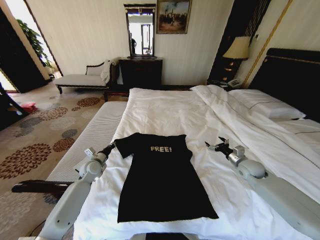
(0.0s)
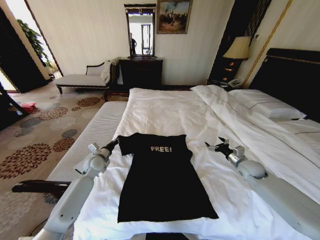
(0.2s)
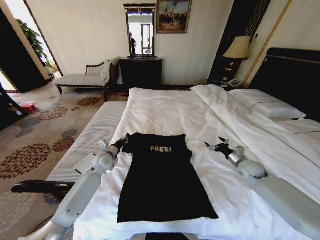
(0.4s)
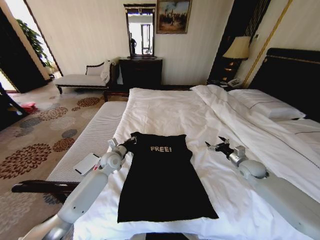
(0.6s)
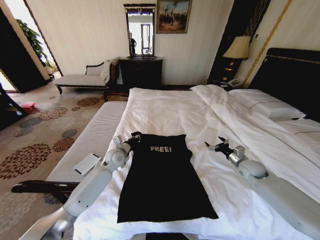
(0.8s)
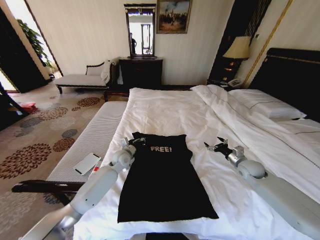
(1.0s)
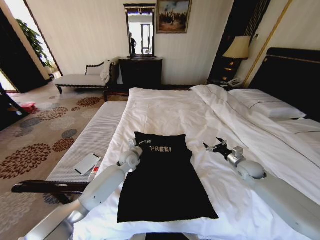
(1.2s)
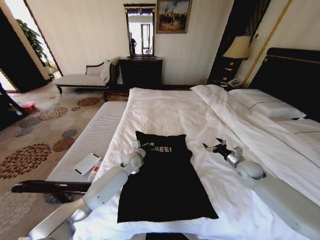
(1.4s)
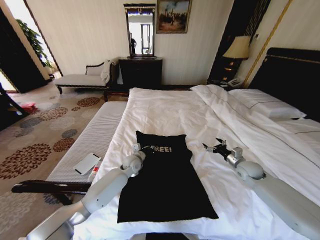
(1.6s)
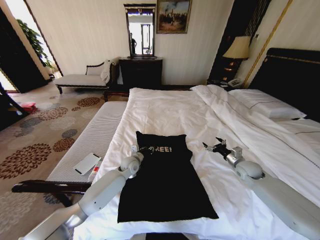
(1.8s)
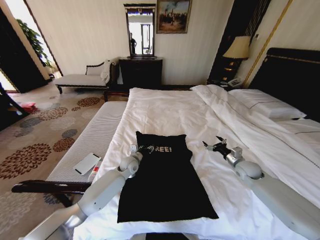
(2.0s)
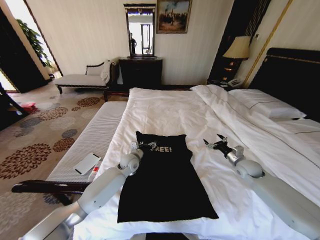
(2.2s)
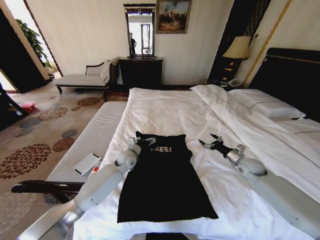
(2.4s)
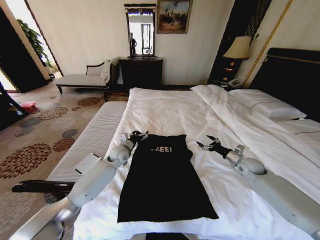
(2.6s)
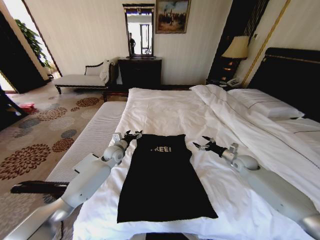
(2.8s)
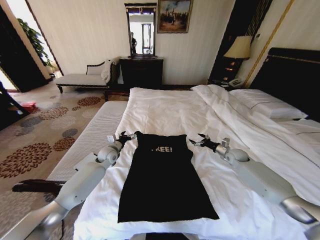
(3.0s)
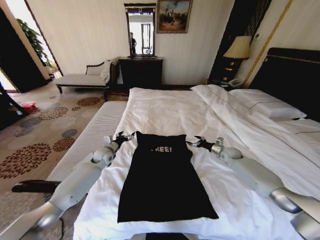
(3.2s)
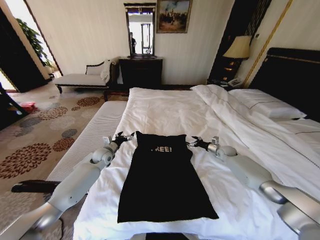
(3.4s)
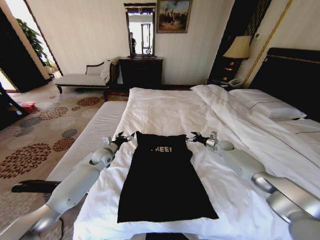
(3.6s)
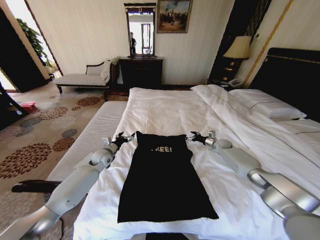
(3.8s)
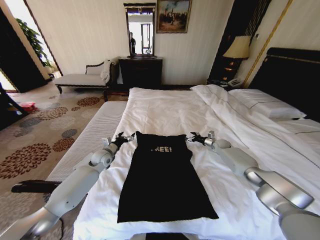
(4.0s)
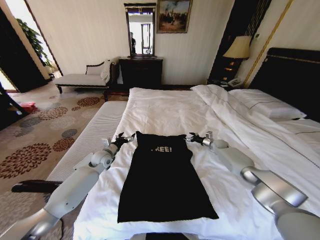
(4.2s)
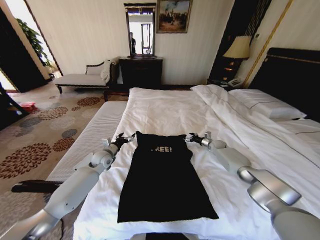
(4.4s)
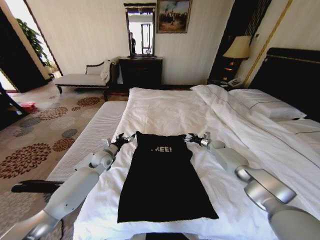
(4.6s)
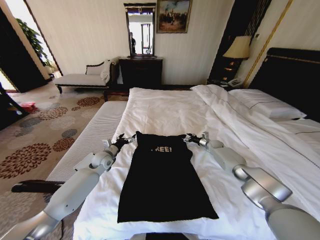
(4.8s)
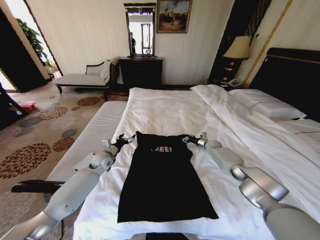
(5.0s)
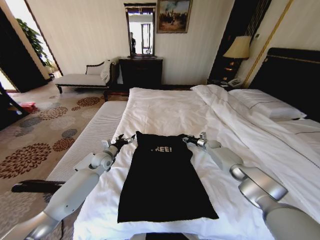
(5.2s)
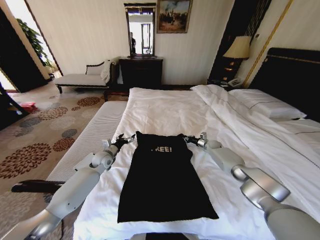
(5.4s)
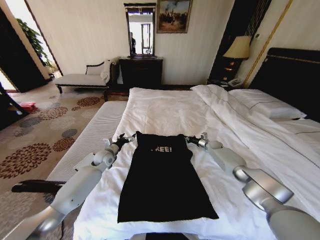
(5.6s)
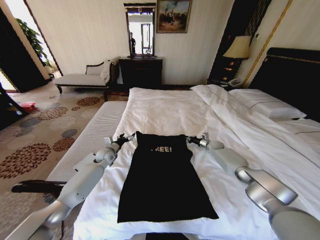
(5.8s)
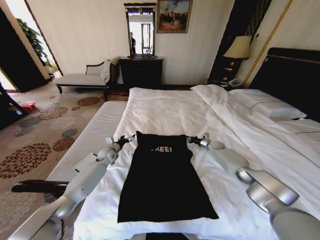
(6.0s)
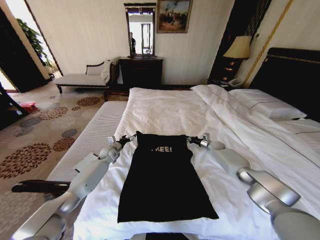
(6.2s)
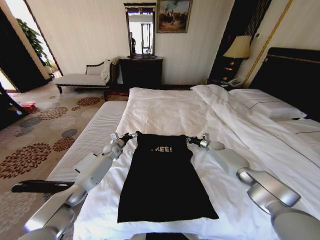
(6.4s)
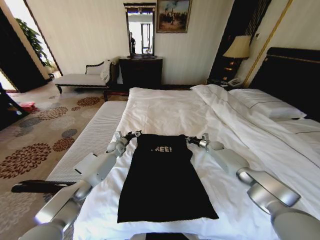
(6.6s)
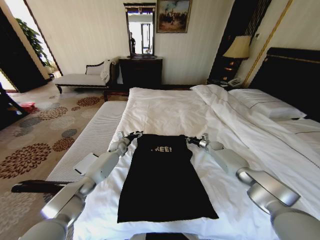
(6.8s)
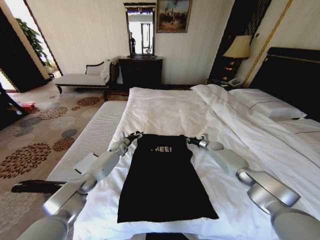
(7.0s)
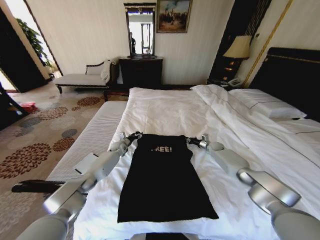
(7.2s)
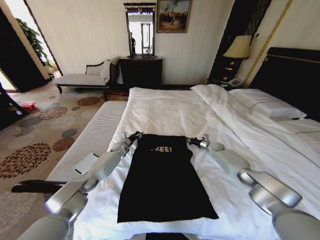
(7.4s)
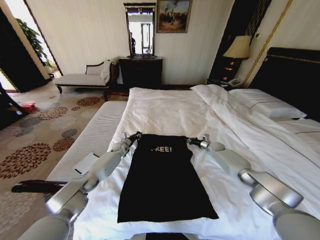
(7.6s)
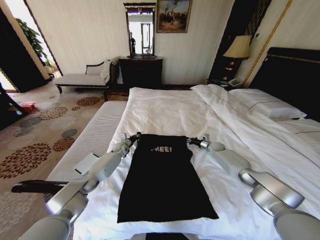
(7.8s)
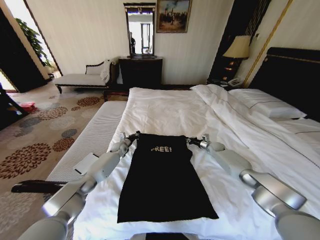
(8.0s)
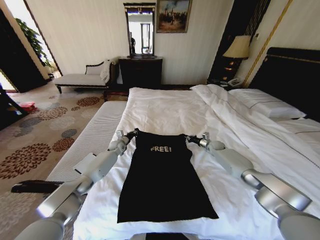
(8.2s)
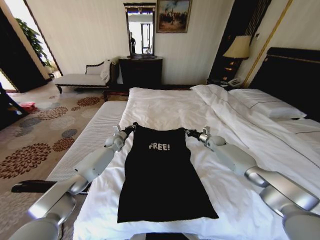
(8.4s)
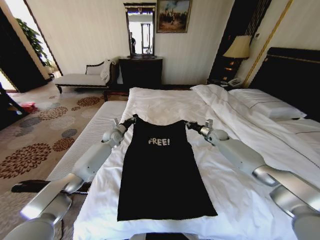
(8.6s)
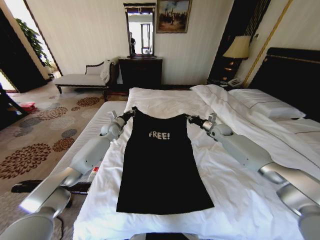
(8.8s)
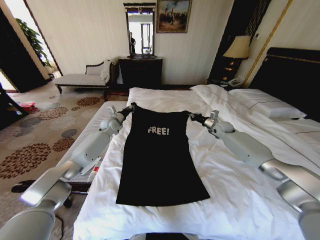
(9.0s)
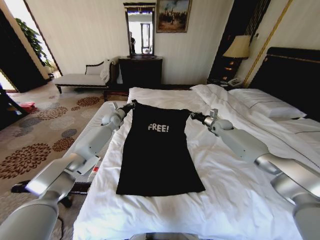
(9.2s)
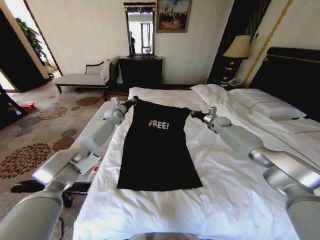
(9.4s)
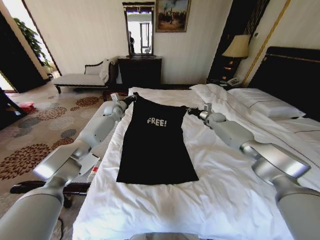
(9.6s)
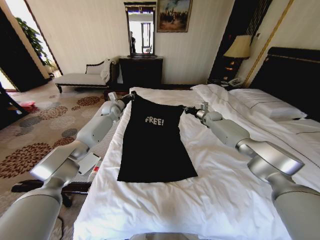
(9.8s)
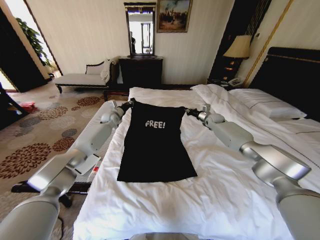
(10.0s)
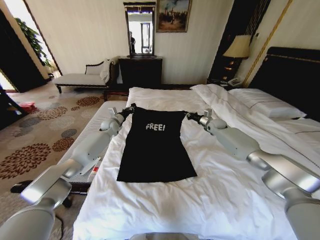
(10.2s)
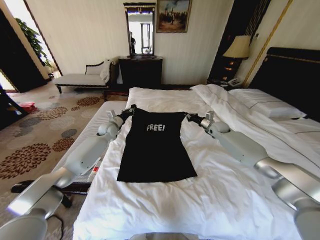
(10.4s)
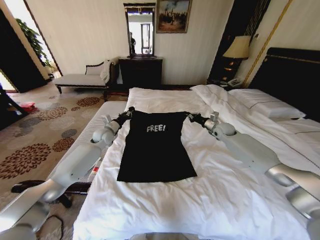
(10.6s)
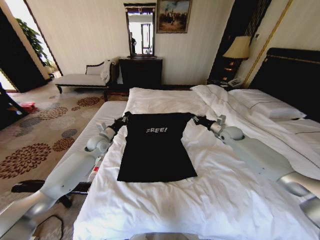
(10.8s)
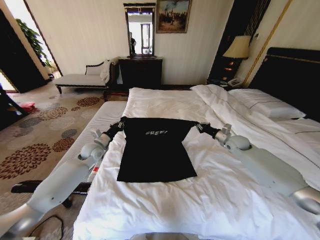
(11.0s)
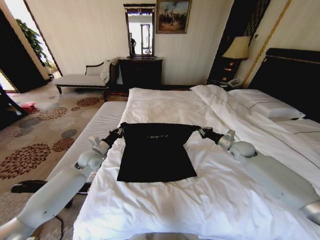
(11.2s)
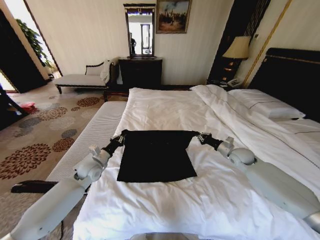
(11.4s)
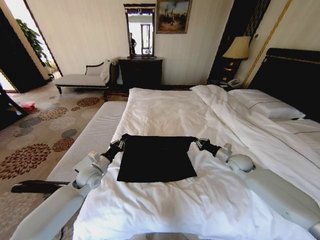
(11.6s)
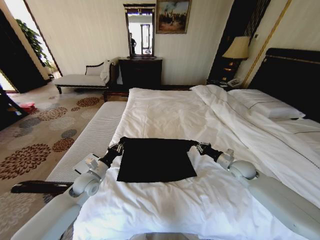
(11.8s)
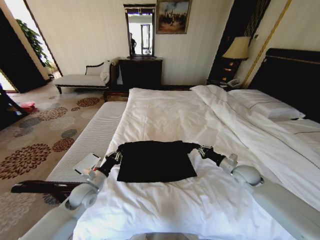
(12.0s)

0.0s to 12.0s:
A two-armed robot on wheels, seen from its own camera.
Task of the whole recording: Fold the clothes on the bed.
0.0s to 1.6s: The left gripper is displaced to the right by approximately 20 cm.
1.6s to 3.0s: The right gripper moves forward, approximately 10 cm. Meanwhile the left gripper shifts about 15 cm to the left, and opens.
3.0s to 4.4s: The right gripper is displaced forward by approximately 10 cm.
4.4s to 6.0s: The right gripper closes its fingers; the left gripper goes roughly 5 cm forward.
6.0s to 7.6s: The left gripper is displaced forward and to the right by approximately 10 cm, and closes.
7.6s to 9.0s: The grippers both shift upward by some 15 cm.
9.0s to 10.4s: The left gripper moves about 5 cm forward and comes back. Meanwhile the right gripper travels forward and back again, some 10 cm each way.
10.4s to 12.0s: The two grippers go some 25 cm backward.

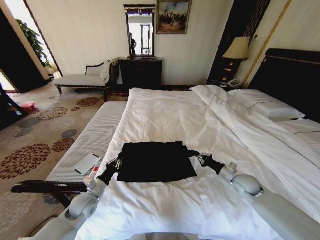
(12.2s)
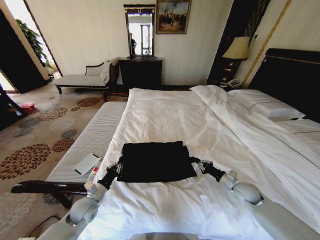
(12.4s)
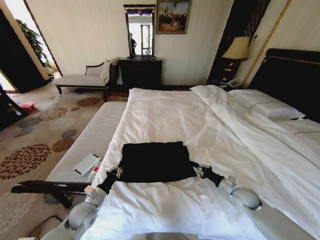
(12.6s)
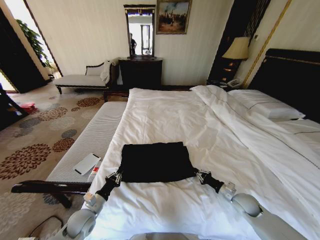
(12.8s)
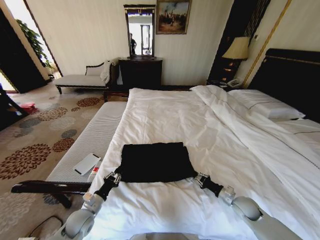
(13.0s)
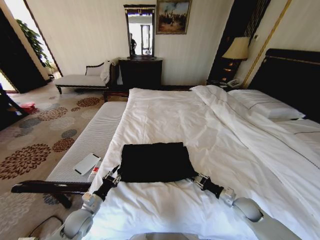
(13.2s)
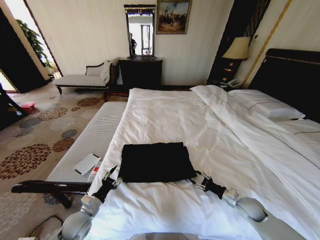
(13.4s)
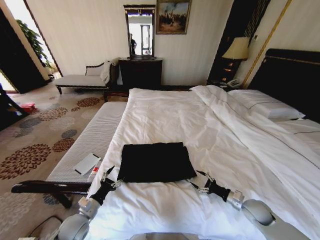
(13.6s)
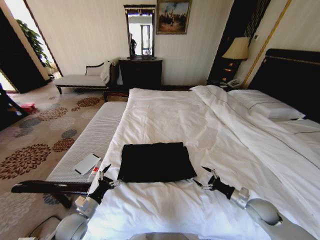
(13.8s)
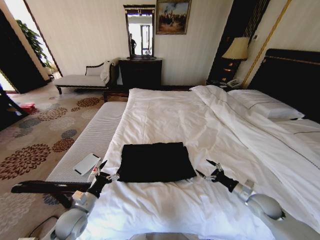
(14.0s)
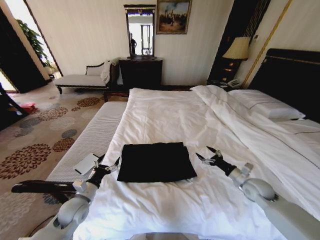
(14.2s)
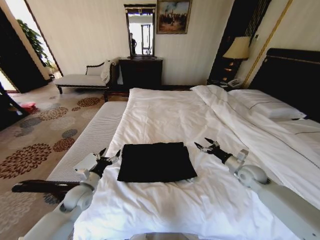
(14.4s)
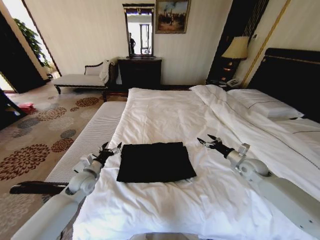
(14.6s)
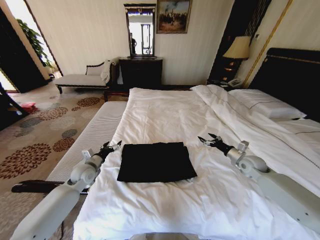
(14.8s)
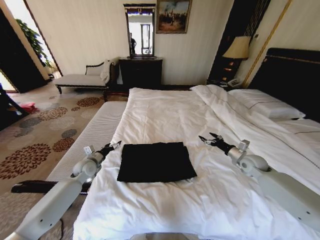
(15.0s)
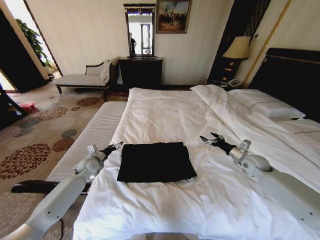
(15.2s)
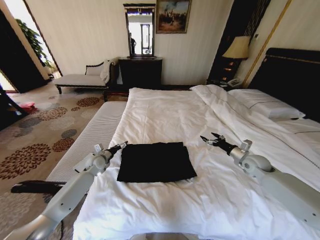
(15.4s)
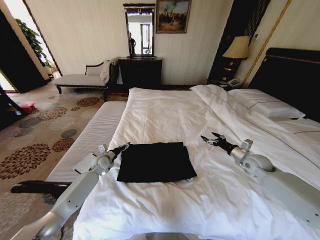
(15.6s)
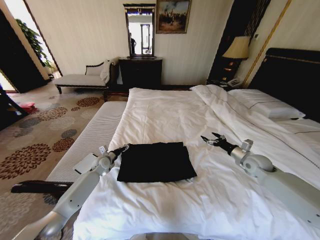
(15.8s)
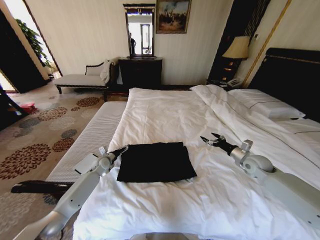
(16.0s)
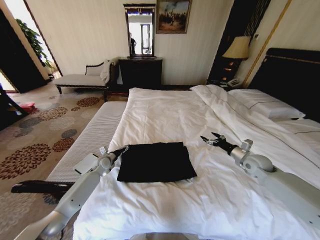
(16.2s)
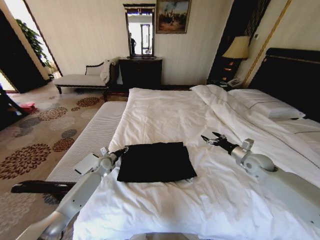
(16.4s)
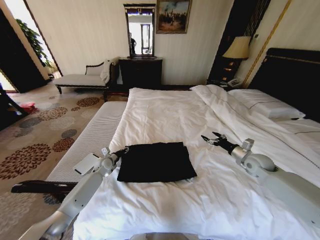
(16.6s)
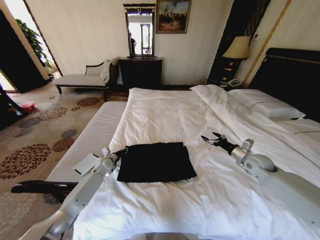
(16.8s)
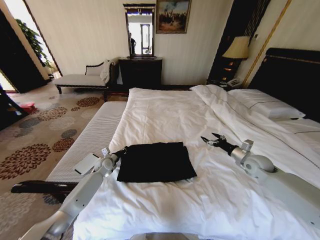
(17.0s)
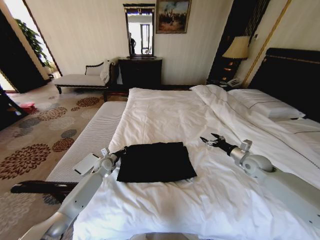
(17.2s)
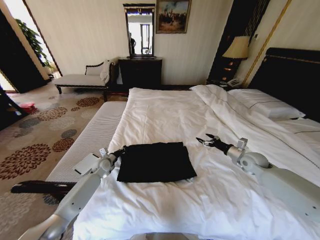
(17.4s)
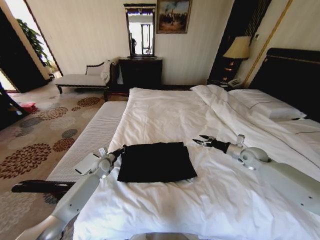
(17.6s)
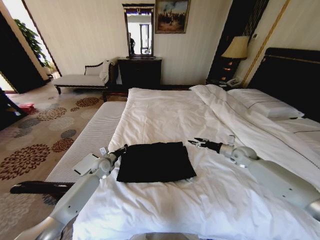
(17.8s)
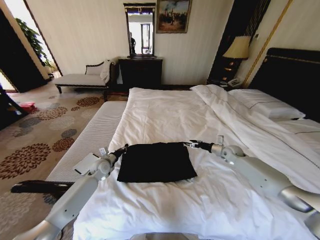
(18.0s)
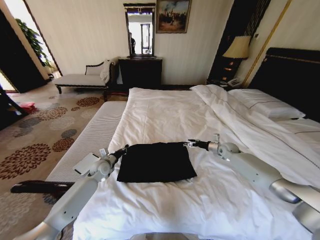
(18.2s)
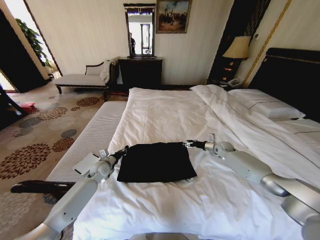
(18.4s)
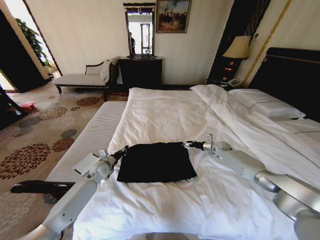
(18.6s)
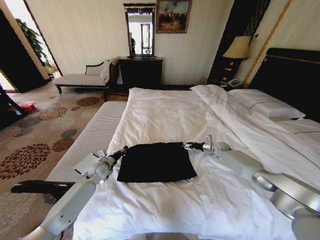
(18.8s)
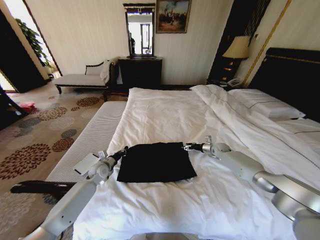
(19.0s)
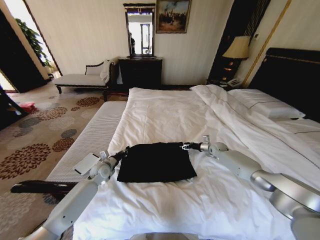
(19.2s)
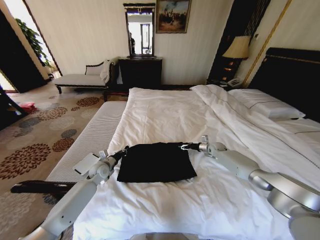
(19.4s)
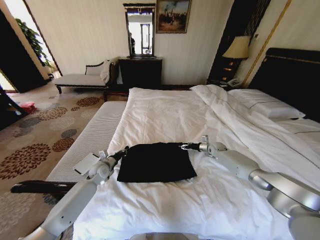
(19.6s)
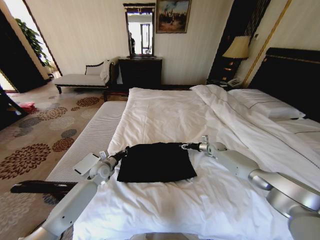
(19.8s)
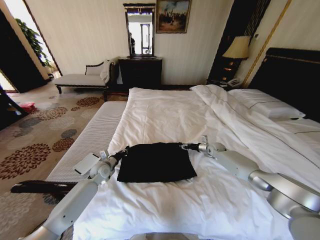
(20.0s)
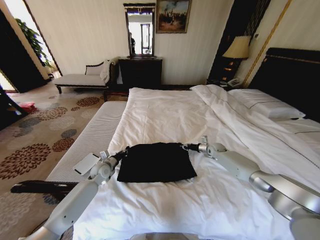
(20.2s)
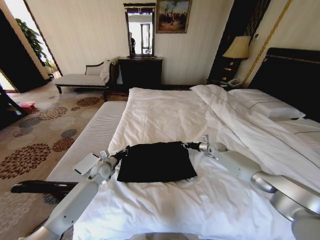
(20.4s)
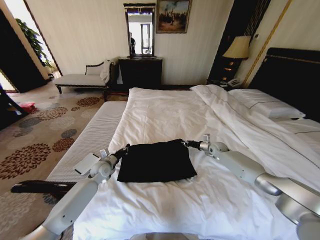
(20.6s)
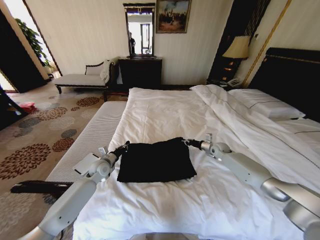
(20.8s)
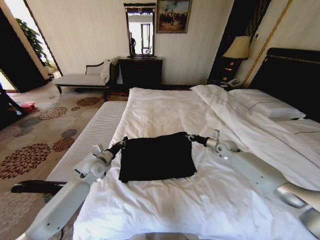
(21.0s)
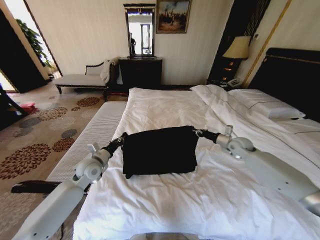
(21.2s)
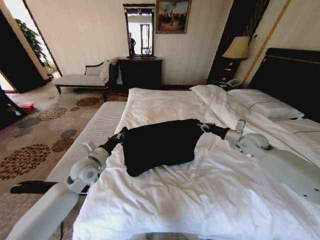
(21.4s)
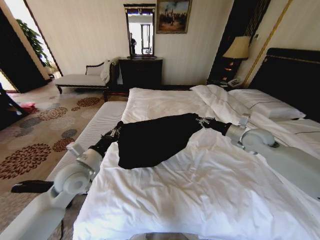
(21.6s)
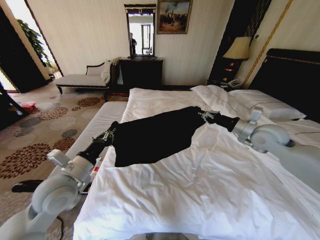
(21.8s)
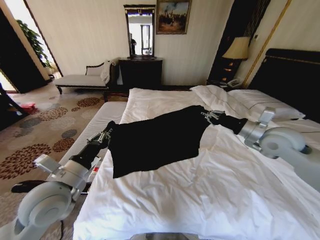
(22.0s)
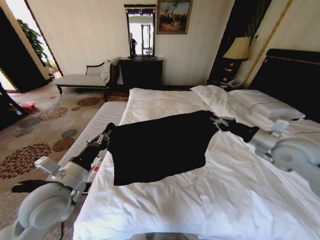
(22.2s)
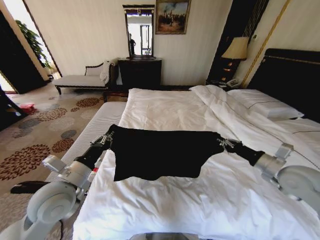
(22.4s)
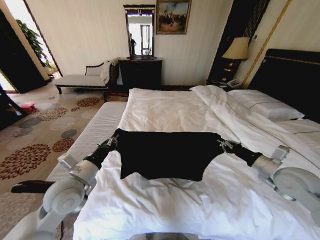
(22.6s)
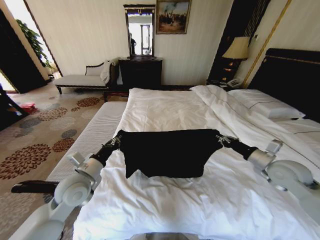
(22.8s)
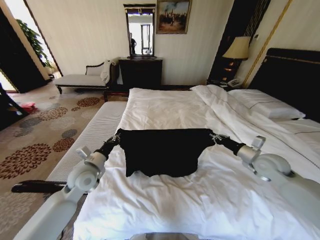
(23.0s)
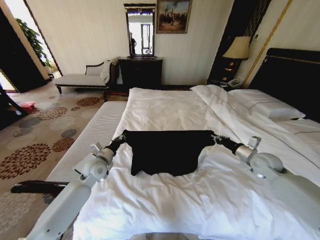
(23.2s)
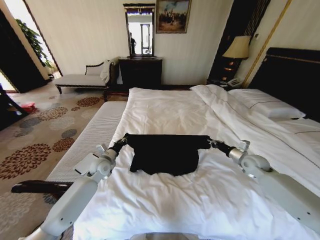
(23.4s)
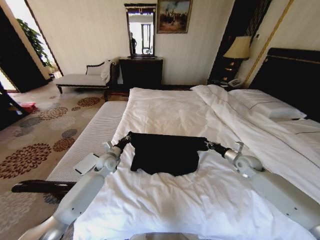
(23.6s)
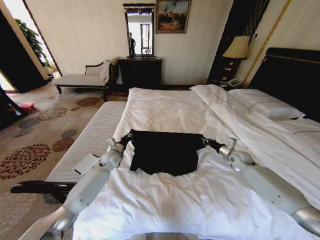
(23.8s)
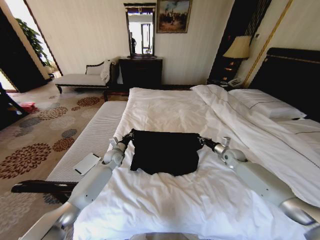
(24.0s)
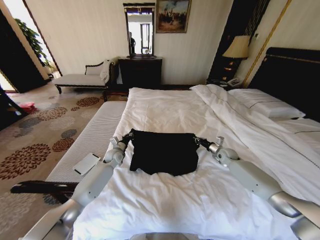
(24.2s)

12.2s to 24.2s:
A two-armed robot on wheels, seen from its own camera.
Task of the whole recording: Fold the clothes on the bed.
12.2s to 13.8s: Both grippers move backward, about 10 cm. The left gripper opens. Meanwhile the right gripper opens its fingers.
13.8s to 15.2s: The right gripper goes roughly 20 cm forward and upward. Meanwhile the left gripper travels forward by about 25 cm.
15.2s to 16.6s: The left gripper travels downward by approximately 5 cm, and closes.
16.6s to 18.2s: The left gripper closes, while the right gripper heads forward and downward, covering some 15 cm.
18.2s to 19.8s: The right gripper shifts by roughly 5 cm, and closes.
19.8s to 21.2s: The right gripper moves upward and backward, approximately 15 cm, and closes its fingers, while the left gripper goes roughly 10 cm upward.
21.2s to 22.6s: The left gripper shifts some 15 cm backward and upward. Meanwhile the right gripper is displaced backward by about 20 cm.
22.6s to 24.2s: The grippers both shift forward and downward by roughly 30 cm.
